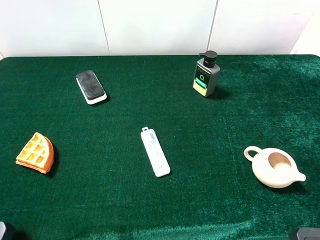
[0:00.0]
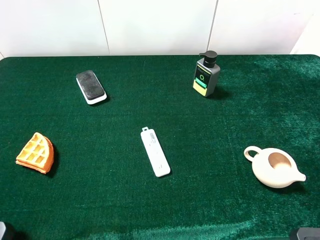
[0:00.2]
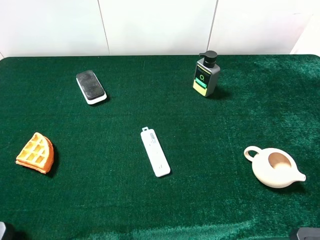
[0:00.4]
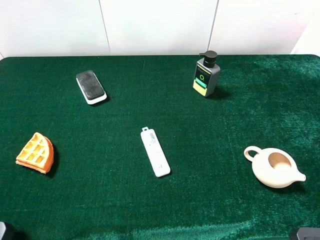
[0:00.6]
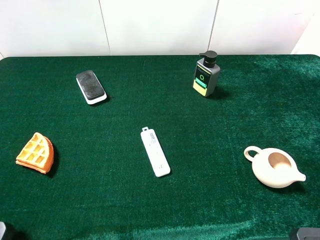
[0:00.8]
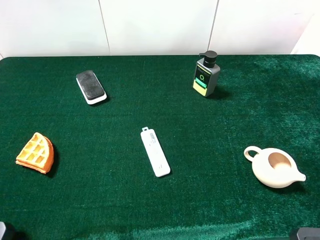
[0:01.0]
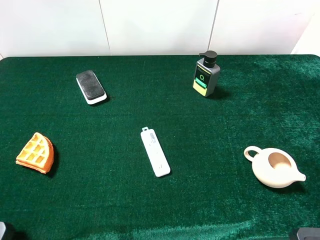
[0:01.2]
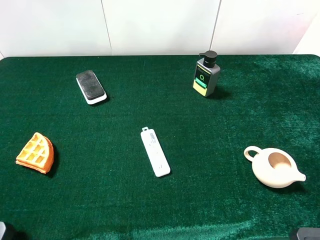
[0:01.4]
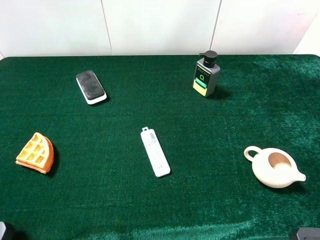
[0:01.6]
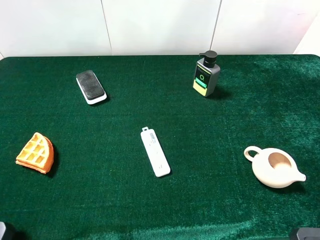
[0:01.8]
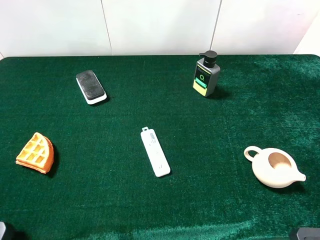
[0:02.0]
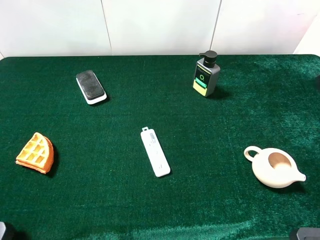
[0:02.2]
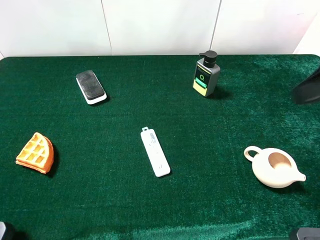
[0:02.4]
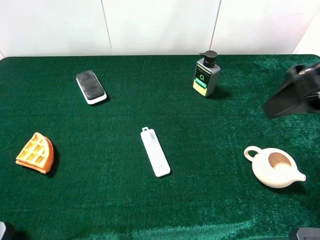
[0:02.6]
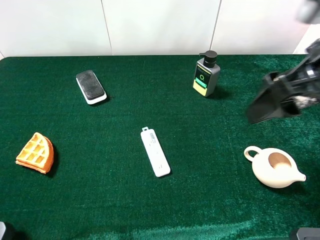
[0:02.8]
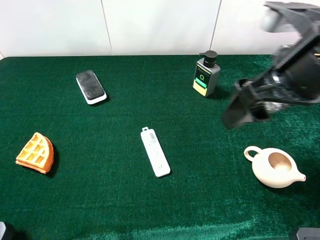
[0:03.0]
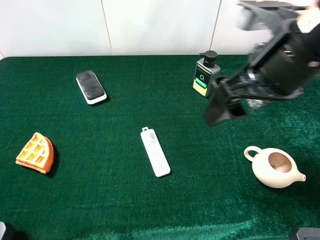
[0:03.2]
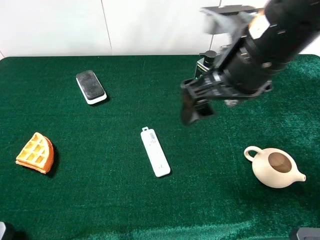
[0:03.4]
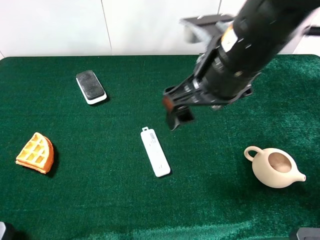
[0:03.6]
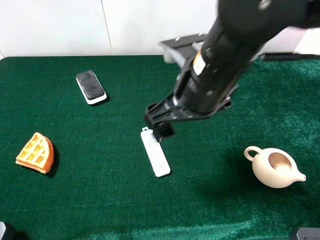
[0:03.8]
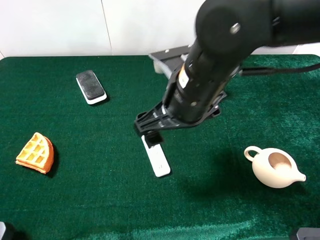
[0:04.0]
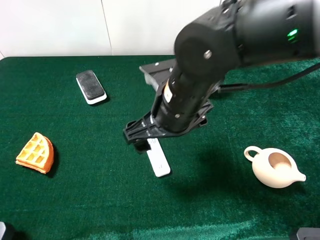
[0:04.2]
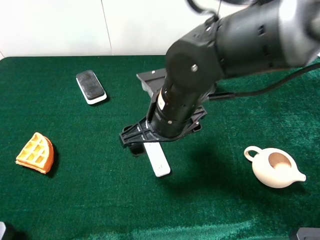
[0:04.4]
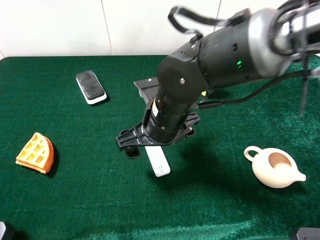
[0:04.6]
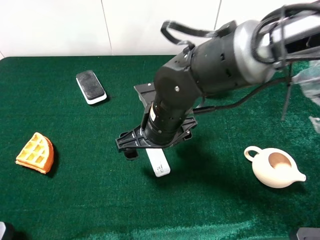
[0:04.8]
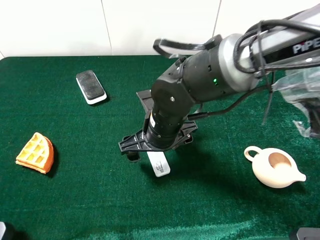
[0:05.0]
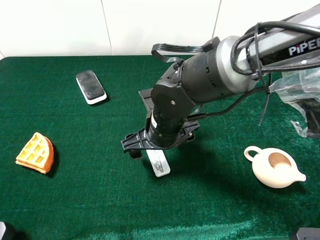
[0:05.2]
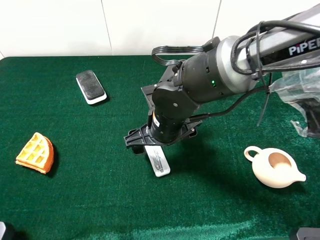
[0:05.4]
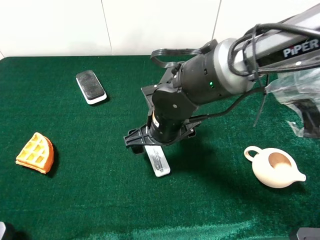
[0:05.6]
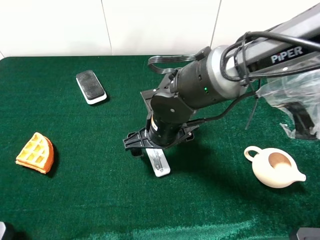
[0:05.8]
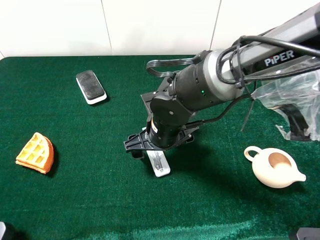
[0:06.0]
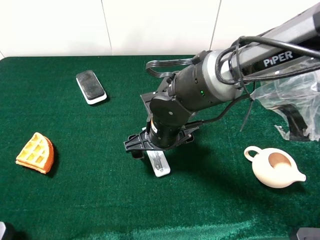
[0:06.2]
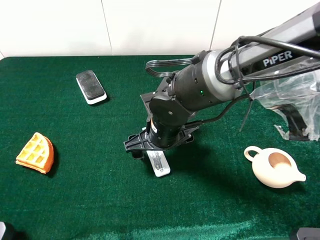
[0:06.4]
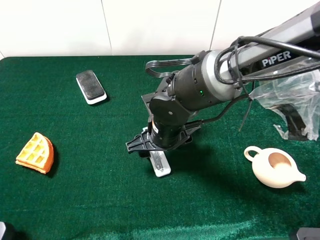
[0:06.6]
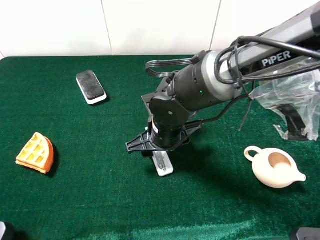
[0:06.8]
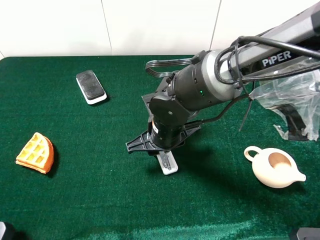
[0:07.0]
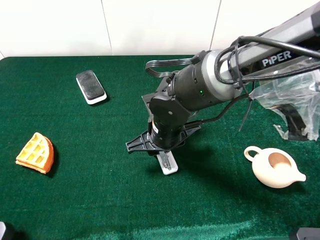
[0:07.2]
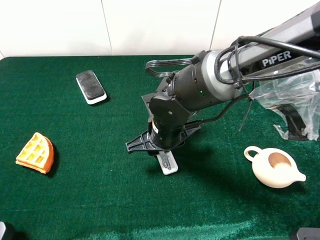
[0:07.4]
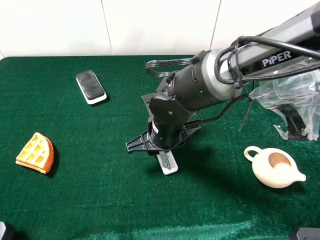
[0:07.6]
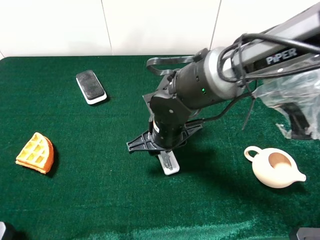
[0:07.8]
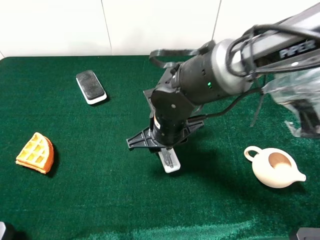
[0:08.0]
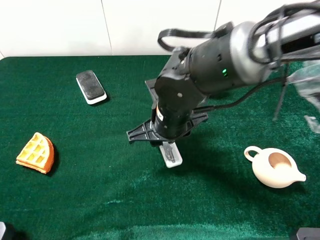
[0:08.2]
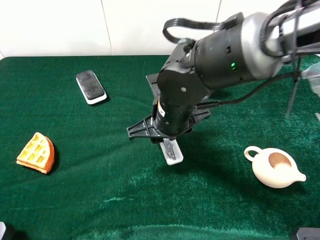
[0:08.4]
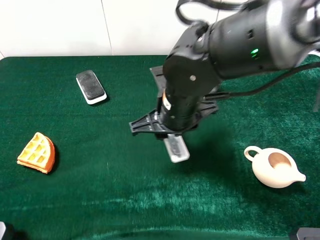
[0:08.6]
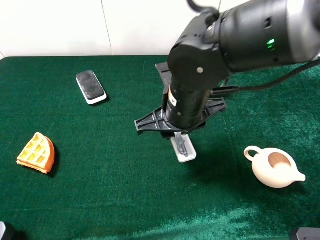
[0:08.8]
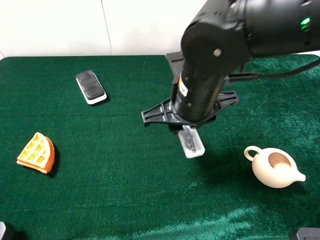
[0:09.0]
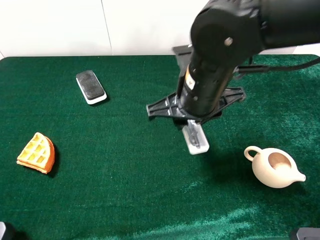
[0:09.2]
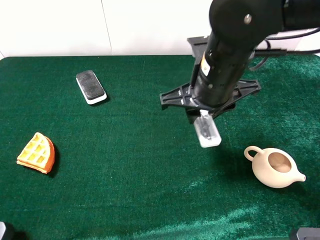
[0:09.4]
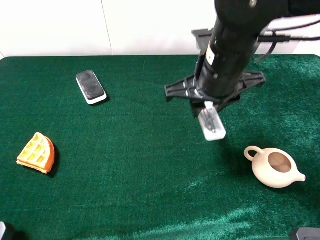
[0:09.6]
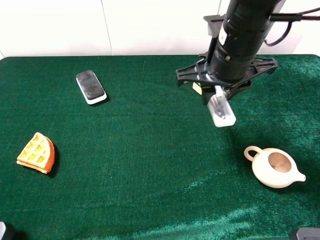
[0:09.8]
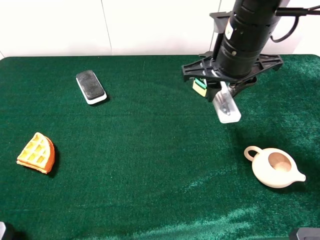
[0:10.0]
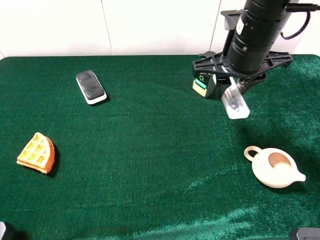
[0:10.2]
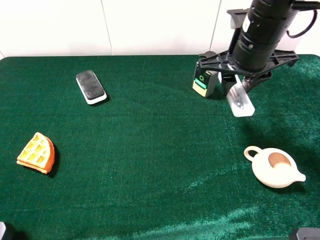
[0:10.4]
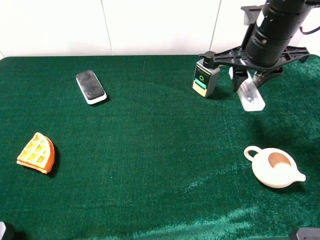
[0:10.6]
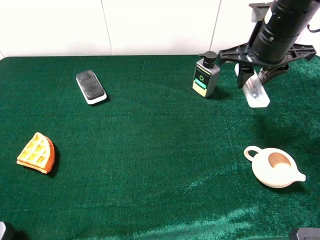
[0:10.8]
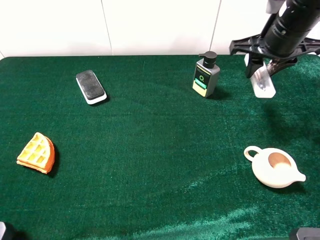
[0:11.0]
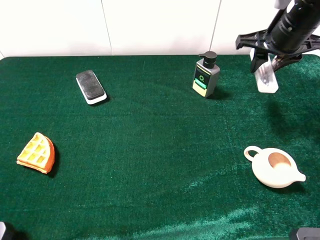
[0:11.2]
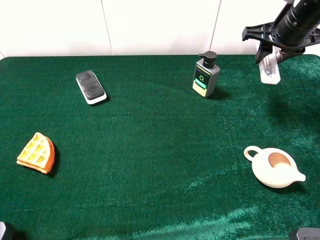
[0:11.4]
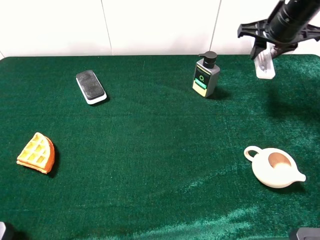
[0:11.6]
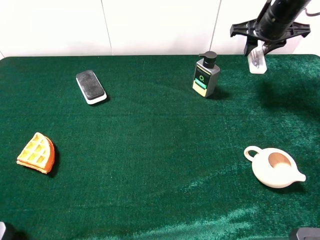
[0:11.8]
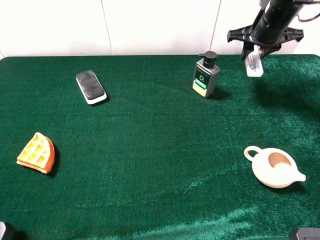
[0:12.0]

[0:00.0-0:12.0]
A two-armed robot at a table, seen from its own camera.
Task of the whole recording: the gripper move the object.
Step, 0:00.0 to 0:07.4: Grasp the compass with the right gripper.
0:01.6 to 0:03.0: The right gripper goes some 15 cm to the left, forward and downward.
0:03.0 to 0:04.4: The right gripper goes roughly 20 cm to the left and downward.
0:04.4 to 0:06.0: The right gripper moves downward, approximately 10 cm.
0:06.0 to 0:07.6: The right gripper closes its fingers.
0:07.6 to 0:09.0: The right gripper is displaced upward by approximately 10 cm.
0:09.0 to 0:10.4: The right gripper goes roughly 10 cm to the right and forward.
0:10.4 to 0:12.0: The right gripper goes about 15 cm forward and to the right.

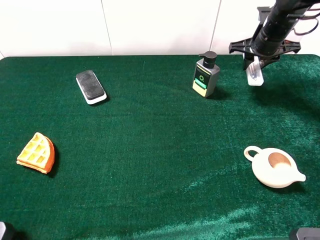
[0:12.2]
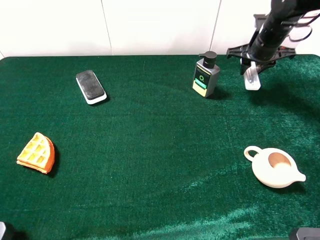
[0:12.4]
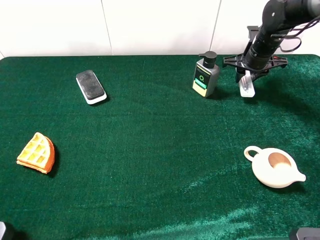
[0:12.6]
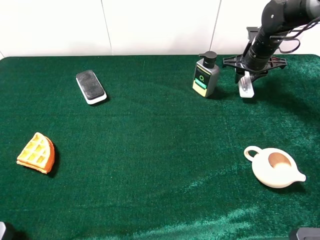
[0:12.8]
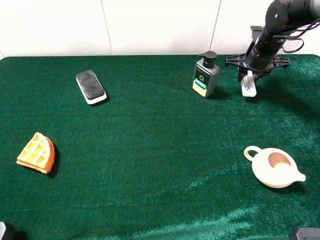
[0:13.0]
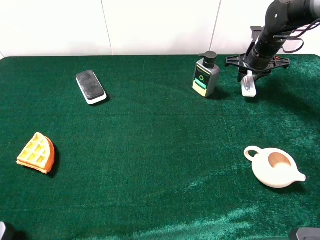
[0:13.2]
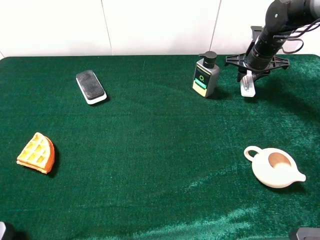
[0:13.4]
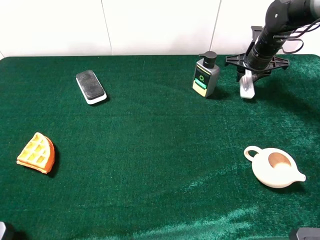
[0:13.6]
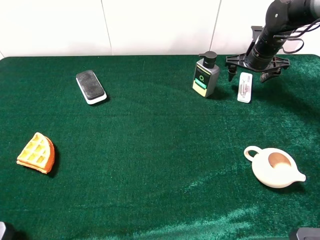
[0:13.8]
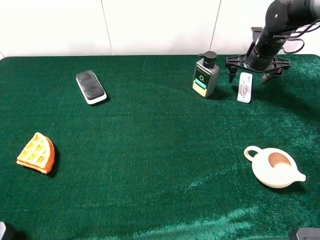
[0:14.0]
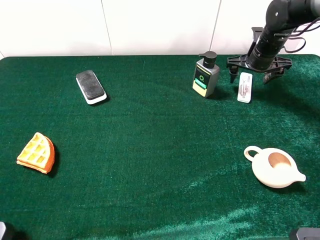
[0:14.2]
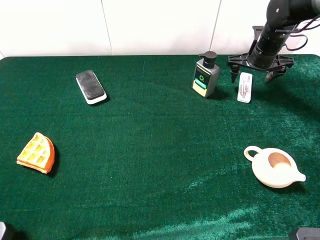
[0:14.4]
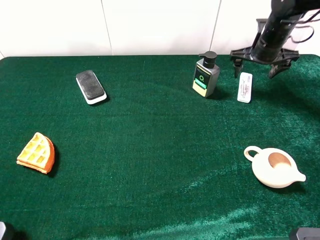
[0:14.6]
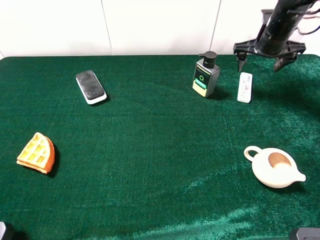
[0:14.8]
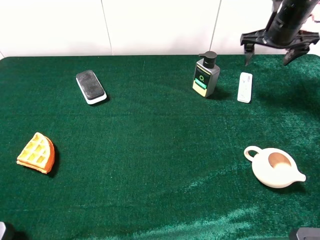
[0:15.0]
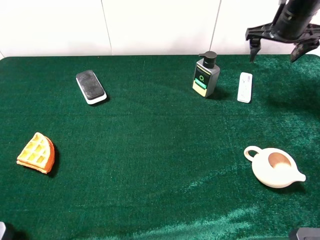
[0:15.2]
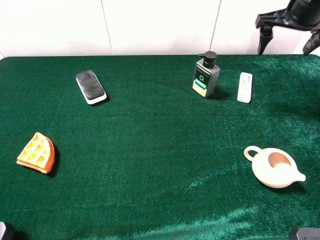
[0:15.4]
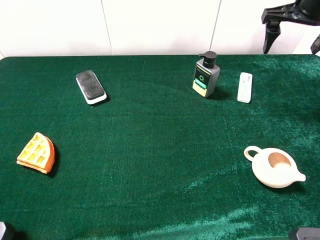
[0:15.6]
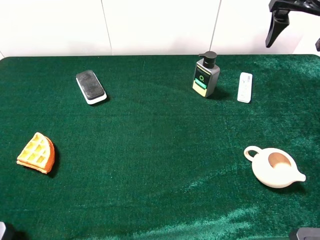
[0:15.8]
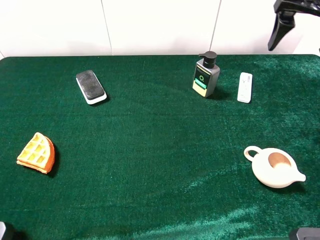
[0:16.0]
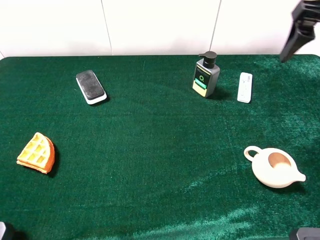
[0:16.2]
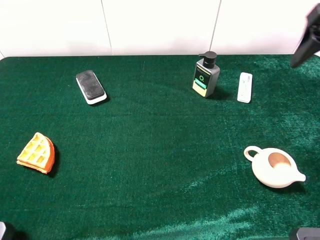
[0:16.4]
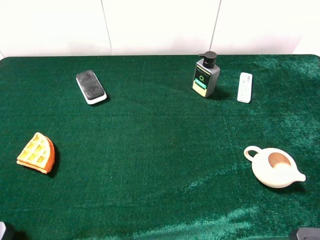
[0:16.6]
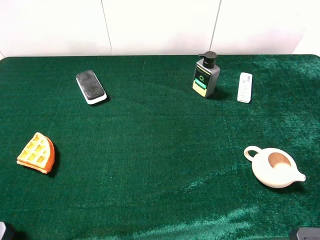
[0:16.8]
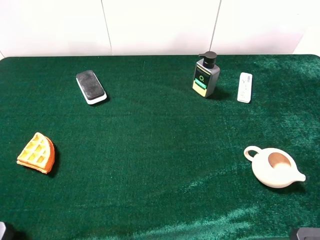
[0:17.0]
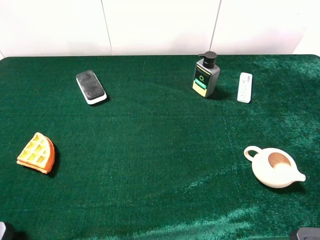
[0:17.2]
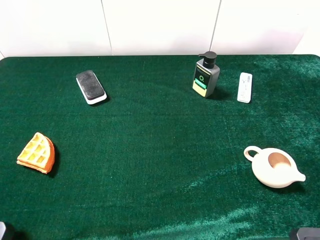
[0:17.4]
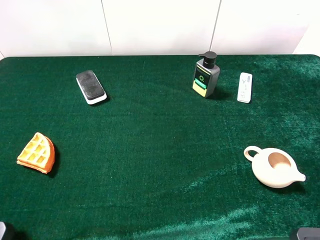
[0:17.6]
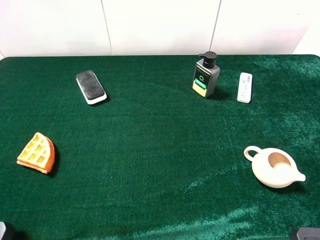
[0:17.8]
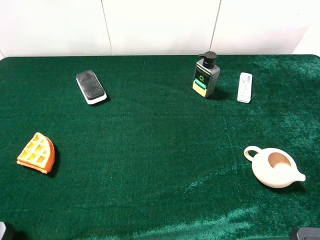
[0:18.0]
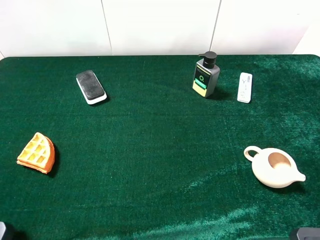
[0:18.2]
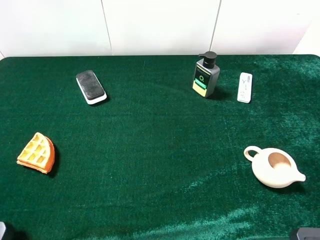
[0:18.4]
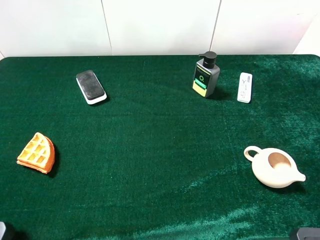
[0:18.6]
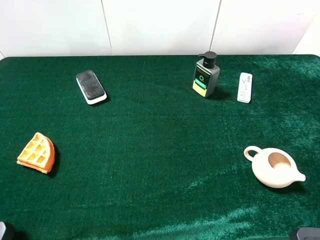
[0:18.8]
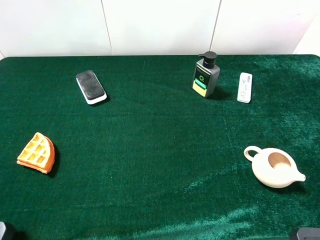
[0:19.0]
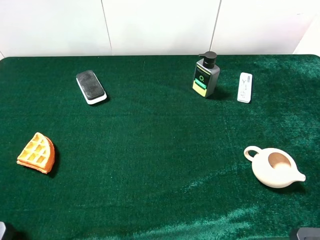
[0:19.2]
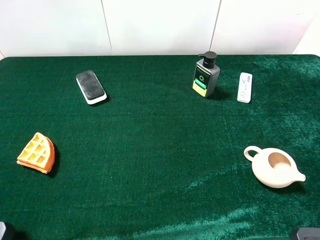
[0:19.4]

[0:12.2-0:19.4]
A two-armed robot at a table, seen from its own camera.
Task of the whole recording: the gripper move the object.
Step, 0:12.2 to 0:14.4: Place the compass on the table with the right gripper.
0:12.2 to 0:13.6: The right gripper changes place by roughly 5 cm, and opens its fingers.
0:13.6 to 0:15.0: The right gripper moves upward, roughly 10 cm, and opens up.
0:15.0 to 0:16.6: The right gripper goes about 30 cm backward and upward.
